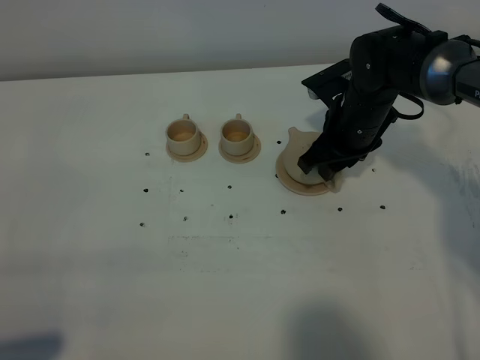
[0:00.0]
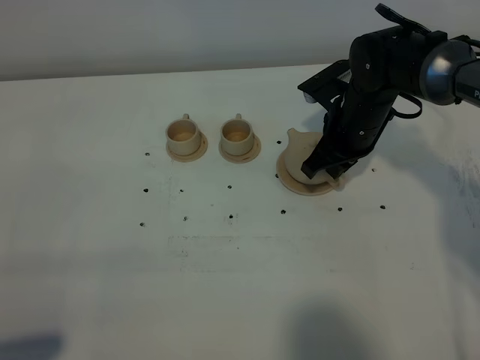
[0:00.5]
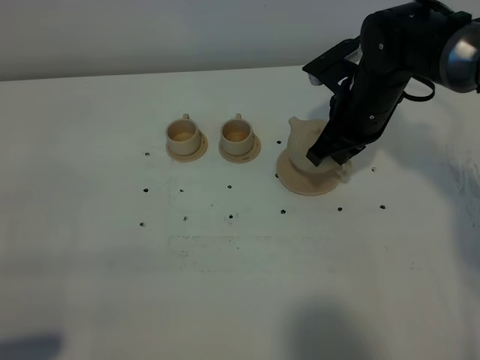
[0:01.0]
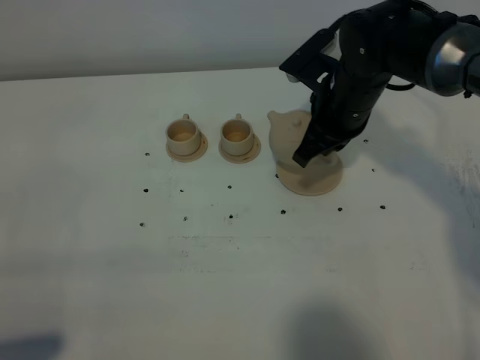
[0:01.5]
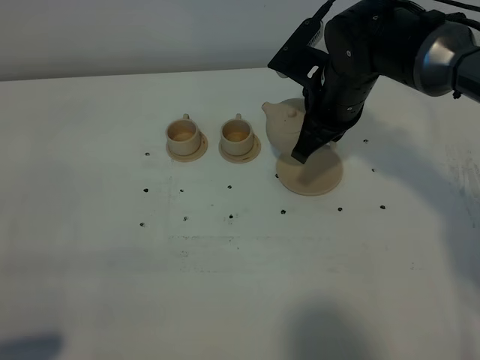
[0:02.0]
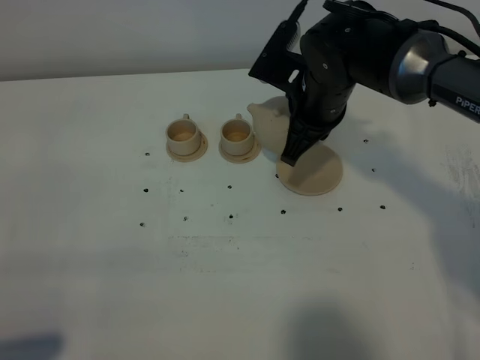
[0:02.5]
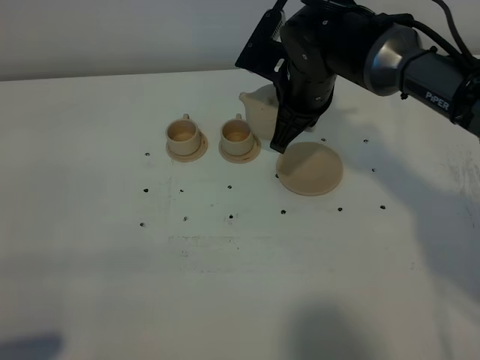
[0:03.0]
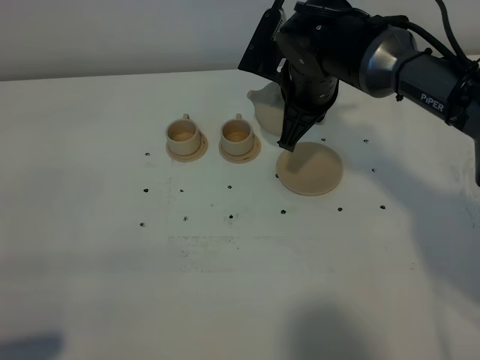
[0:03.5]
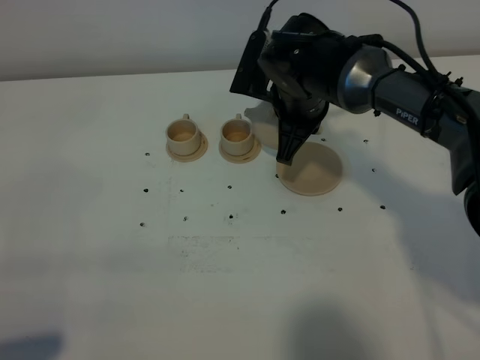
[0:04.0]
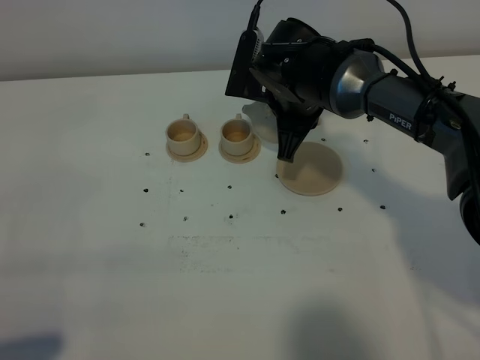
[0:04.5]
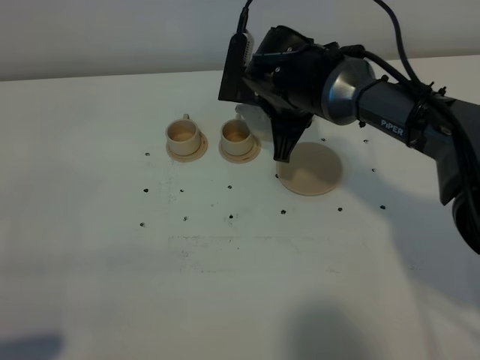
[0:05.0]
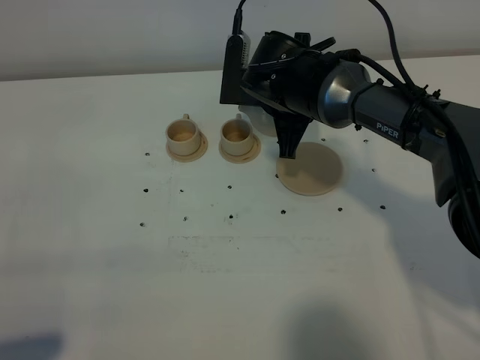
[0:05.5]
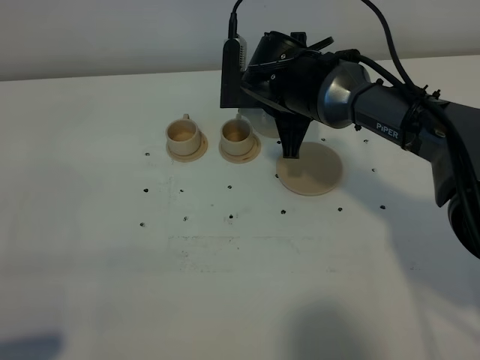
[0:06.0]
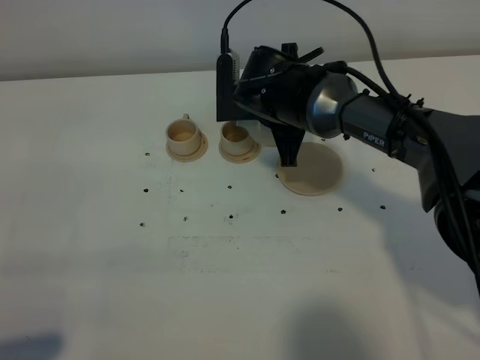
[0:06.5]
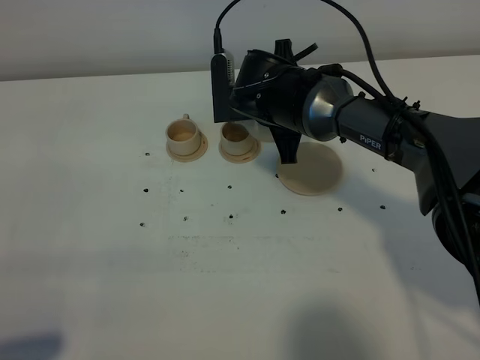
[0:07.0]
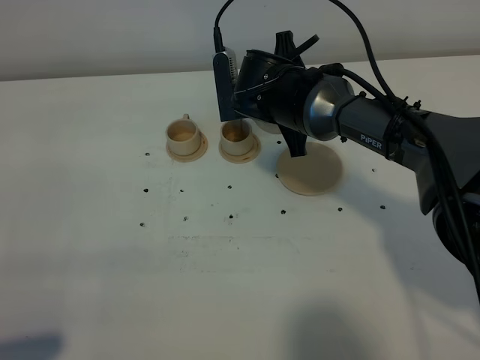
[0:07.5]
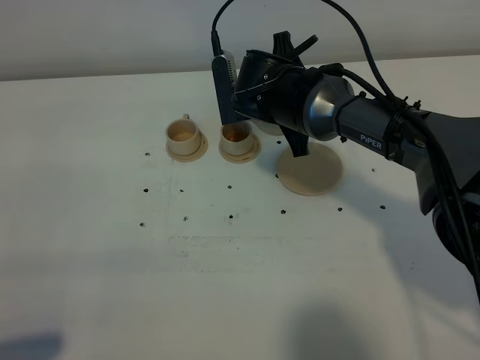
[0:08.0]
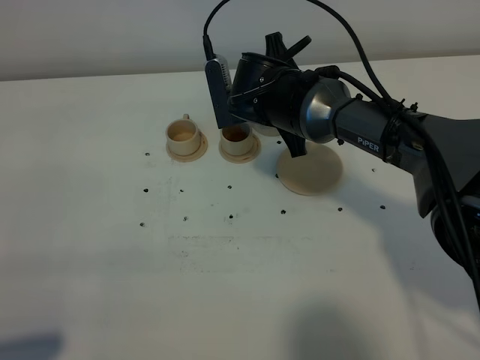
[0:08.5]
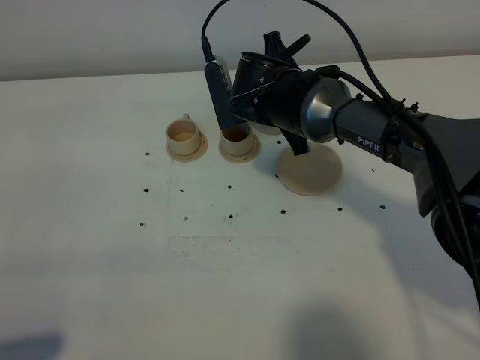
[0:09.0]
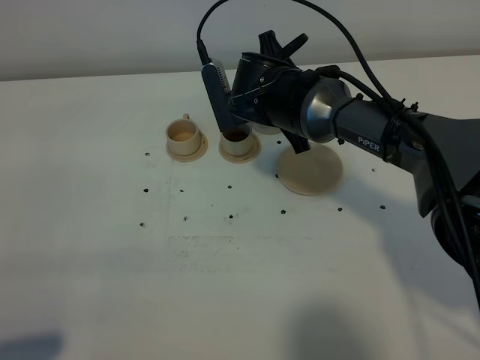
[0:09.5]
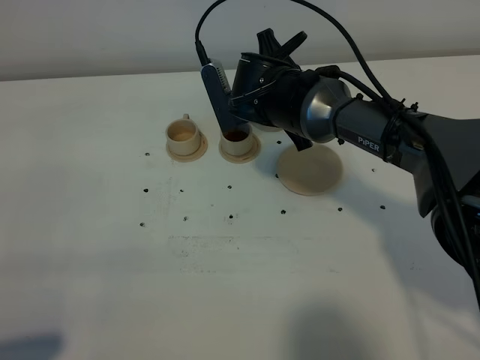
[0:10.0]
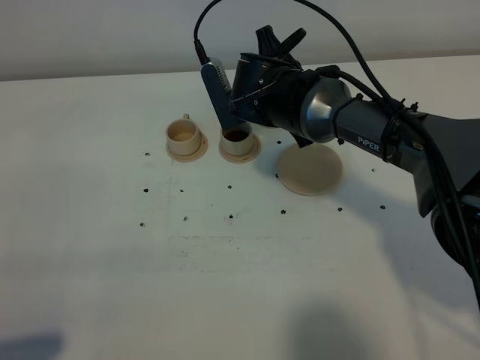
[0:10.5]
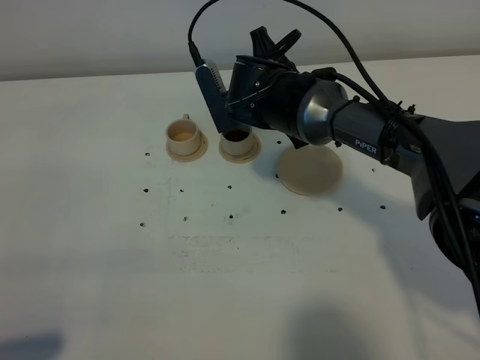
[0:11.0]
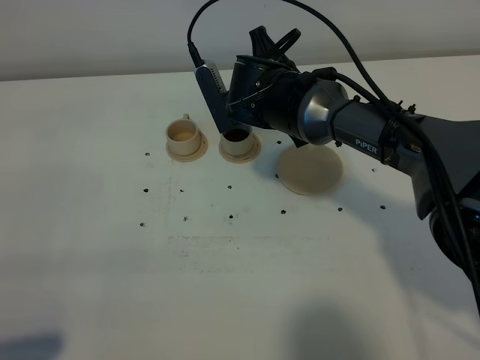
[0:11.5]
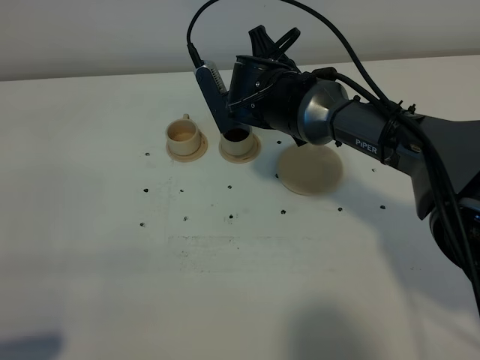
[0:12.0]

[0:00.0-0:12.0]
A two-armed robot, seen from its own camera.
Task of the whole recording: grasp the brown teapot and pour the tea into the two brown teacups one by one, put the brown teapot back in its original place.
0:00.0 to 0:02.0: The right gripper is displaced upward by approximately 5 cm, and closes.
0:02.0 to 0:04.0: The right gripper shifts by about 5 cm.
0:04.0 to 0:06.0: The grippers stay close to where they were, moving slightly.
0:06.0 to 0:08.0: There are only small adjustments of the grippers.
0:08.0 to 0:10.0: The grippers move only a little.
0:10.0 to 0:12.0: Neither gripper changes place.

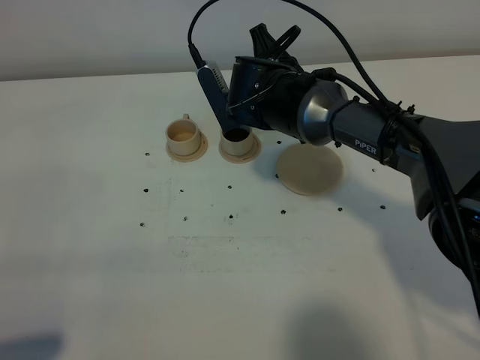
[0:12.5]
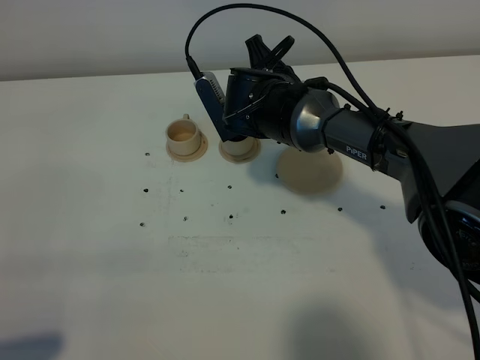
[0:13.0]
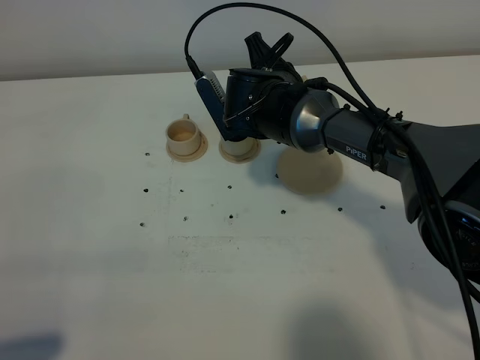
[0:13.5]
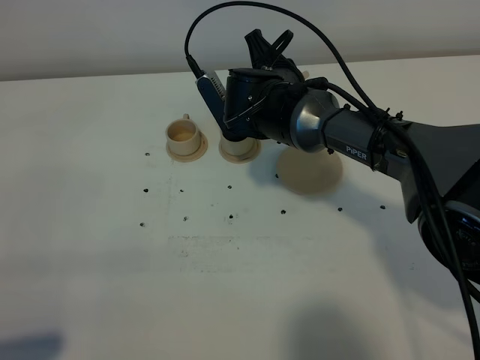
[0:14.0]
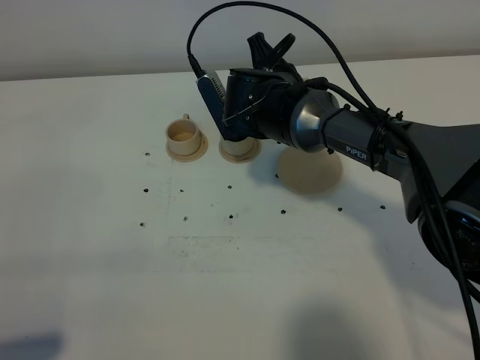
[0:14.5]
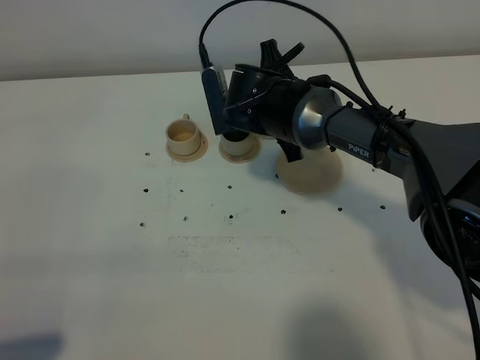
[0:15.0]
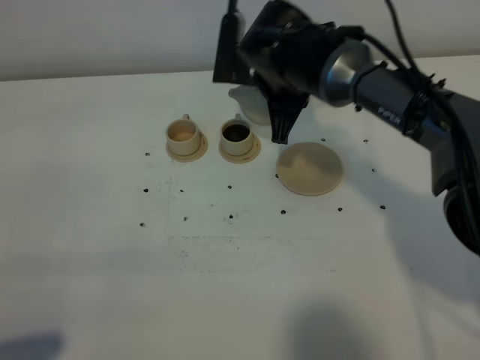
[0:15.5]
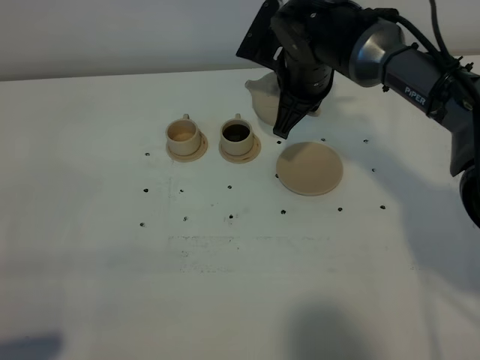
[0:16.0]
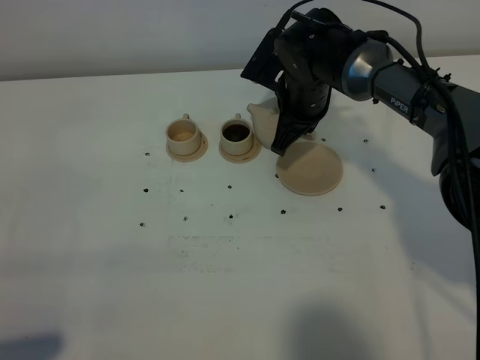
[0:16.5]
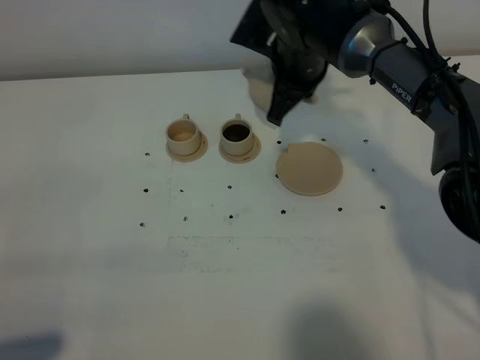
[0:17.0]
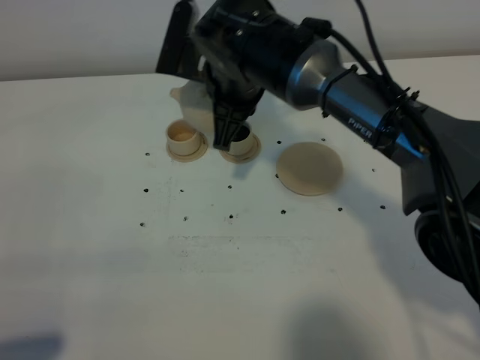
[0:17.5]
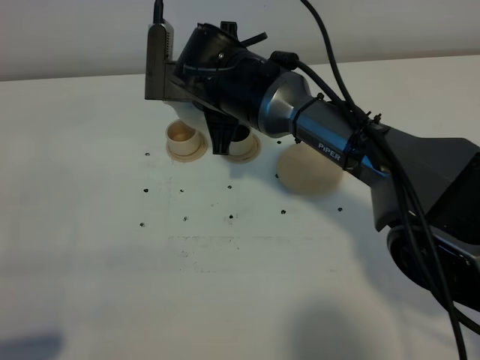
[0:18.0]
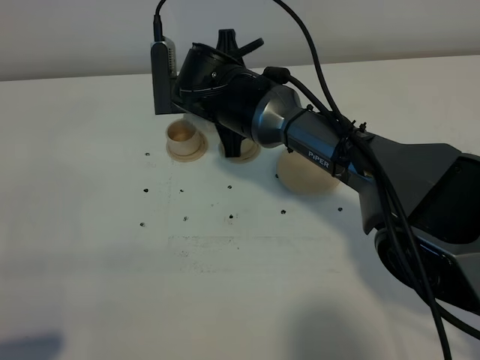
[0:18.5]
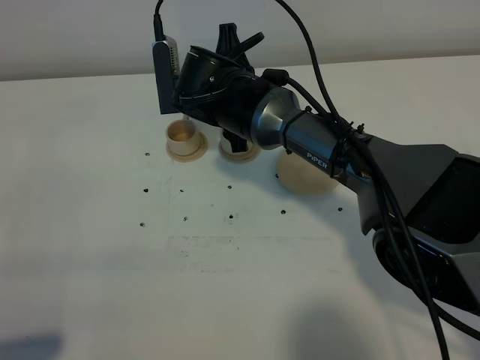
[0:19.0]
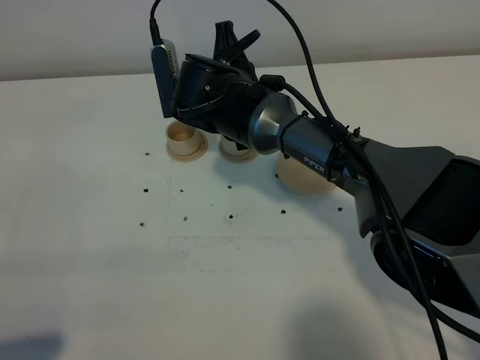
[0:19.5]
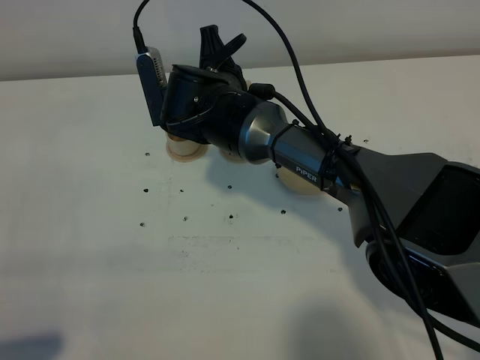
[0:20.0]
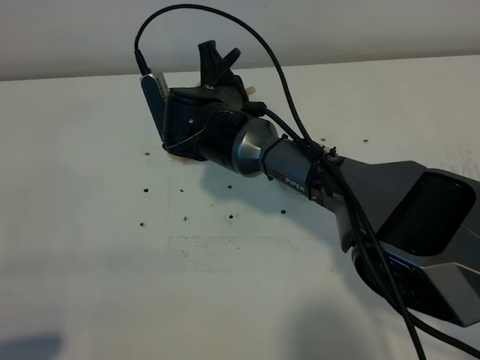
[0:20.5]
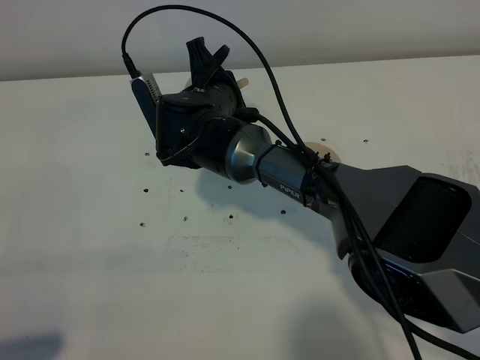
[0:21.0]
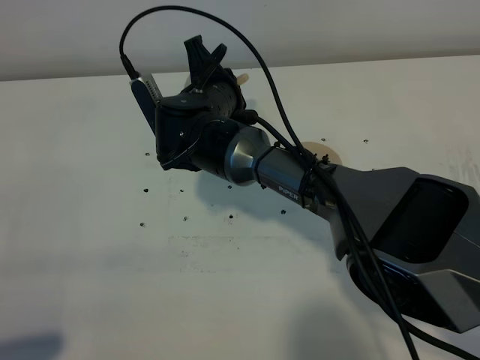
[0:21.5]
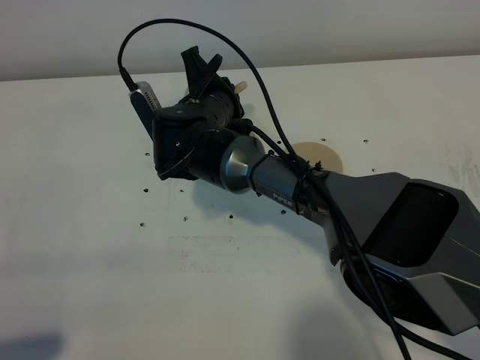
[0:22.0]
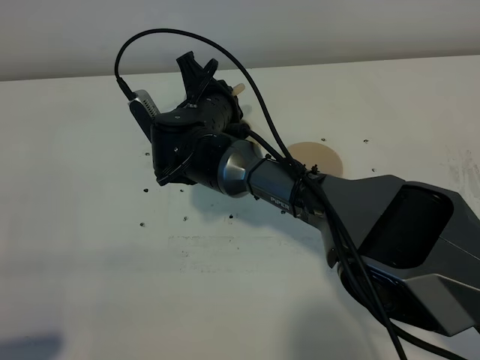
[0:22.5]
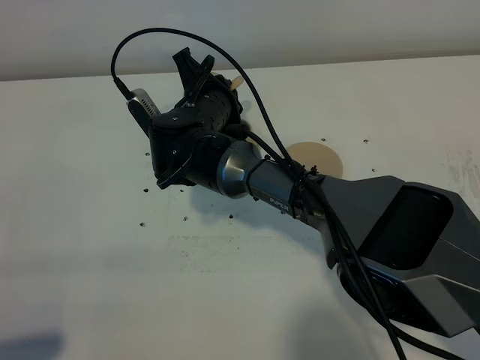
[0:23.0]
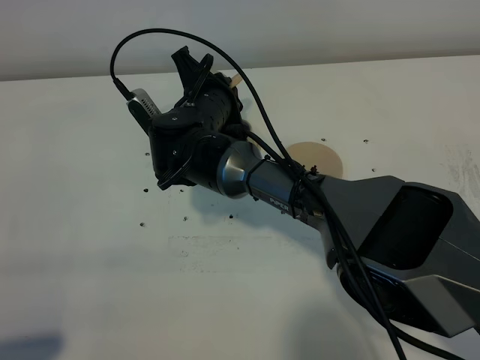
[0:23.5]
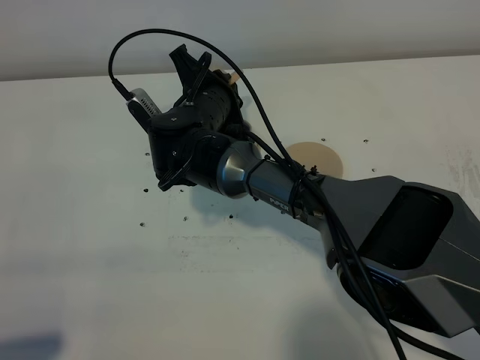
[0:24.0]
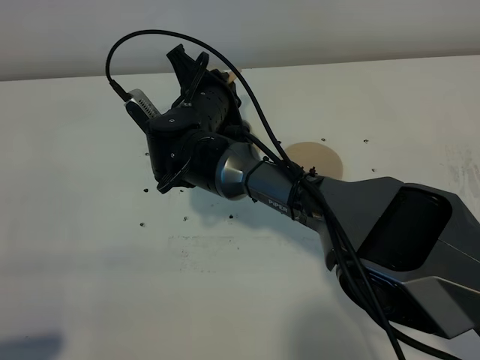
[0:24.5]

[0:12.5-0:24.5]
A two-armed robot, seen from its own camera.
Task of the whole recording: grasp the brown teapot and pour the tea into the two brown teacups one by one, put the brown teapot back in its original place.
0:12.5 to 0:14.5: Neither gripper changes place.
0:14.5 to 0:16.5: The right gripper shifts by roughly 5 cm.
0:16.5 to 0:18.5: The right gripper shifts about 10 cm to the left.
0:20.5 to 0:24.5: The grippers make only small movements.

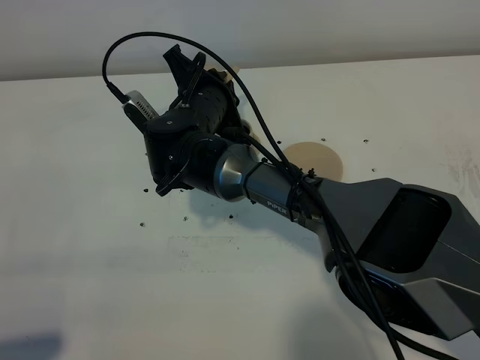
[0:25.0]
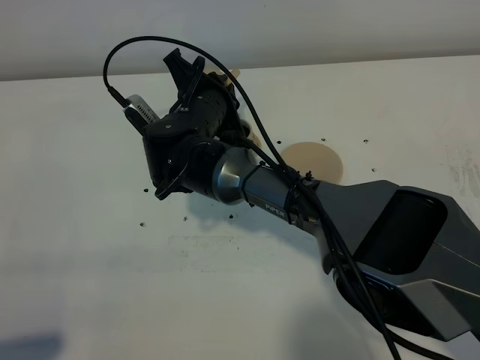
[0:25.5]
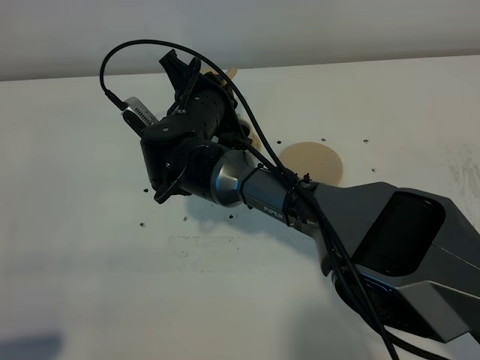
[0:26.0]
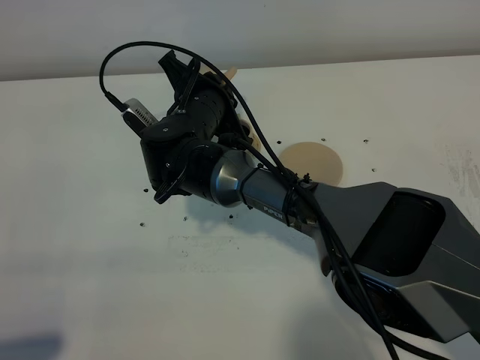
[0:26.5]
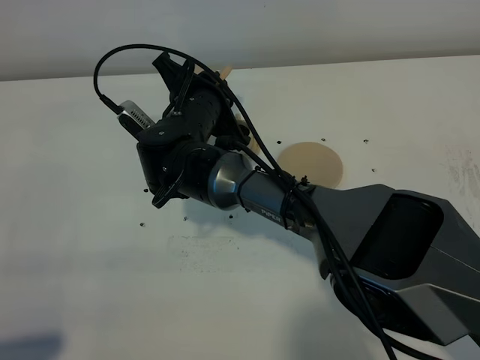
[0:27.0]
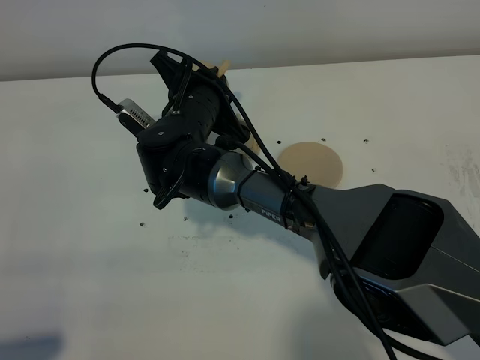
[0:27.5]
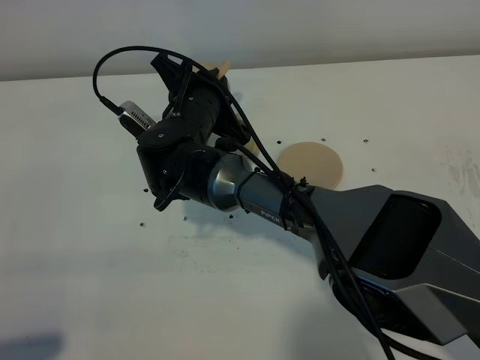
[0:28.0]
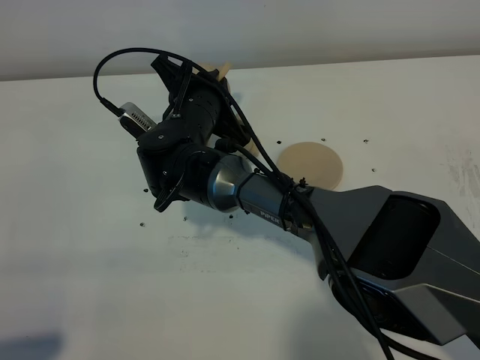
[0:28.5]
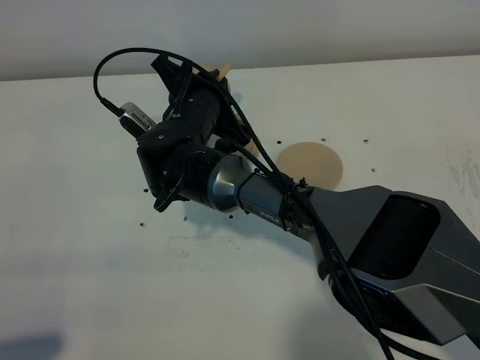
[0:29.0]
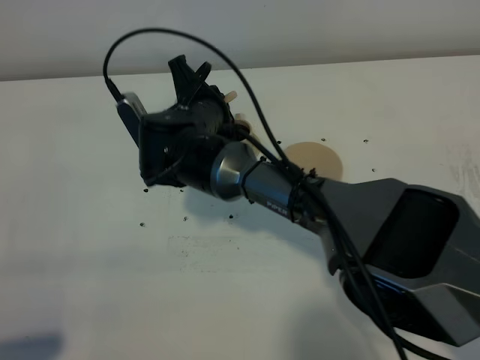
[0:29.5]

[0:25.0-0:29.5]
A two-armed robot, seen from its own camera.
Task of the whole recording: grasp the brown teapot and pour the tea into the two brown teacups one by one, put the brown teapot back in its original place.
0:25.0 to 0:27.0: The grippers make only small movements.
